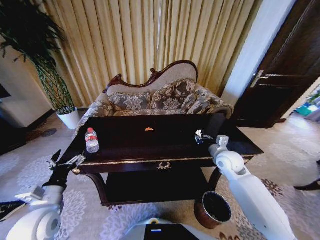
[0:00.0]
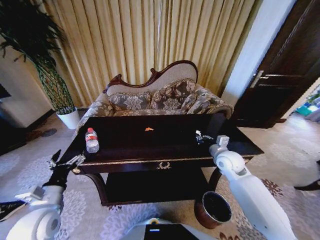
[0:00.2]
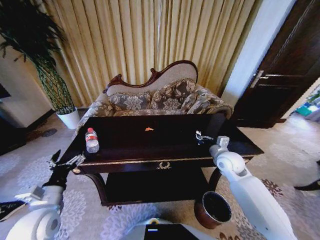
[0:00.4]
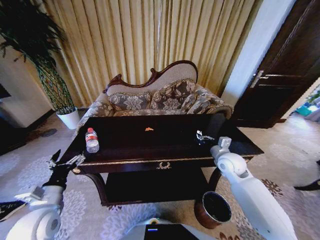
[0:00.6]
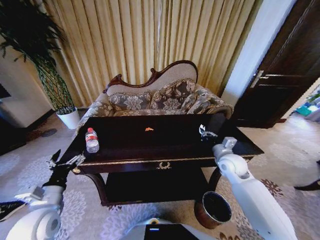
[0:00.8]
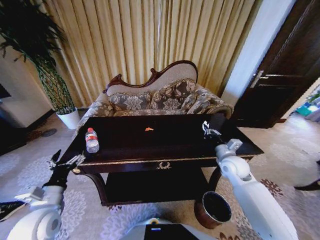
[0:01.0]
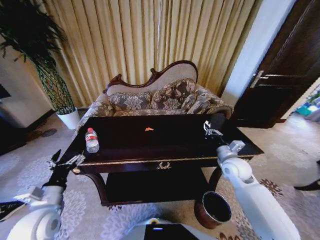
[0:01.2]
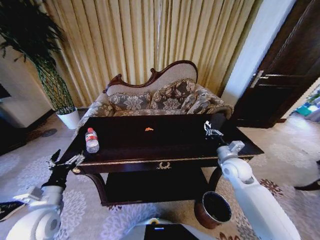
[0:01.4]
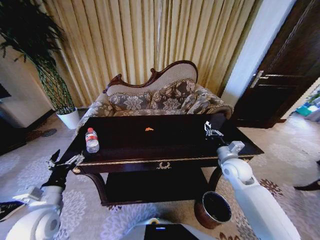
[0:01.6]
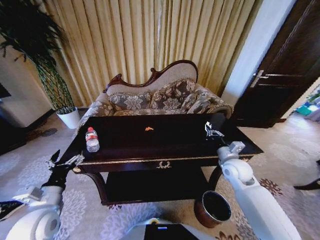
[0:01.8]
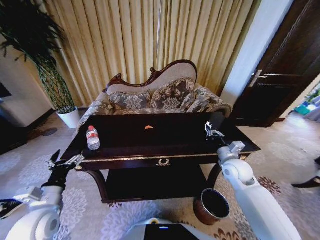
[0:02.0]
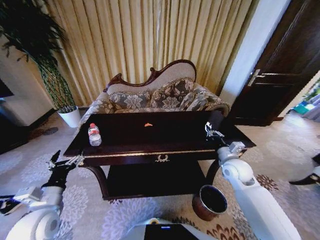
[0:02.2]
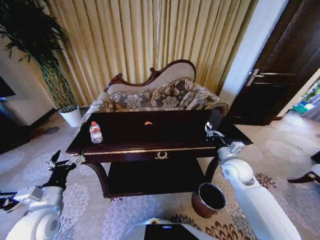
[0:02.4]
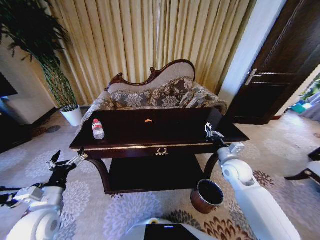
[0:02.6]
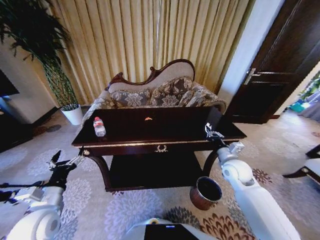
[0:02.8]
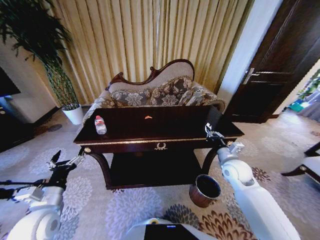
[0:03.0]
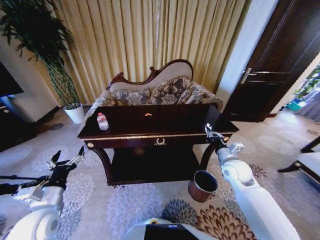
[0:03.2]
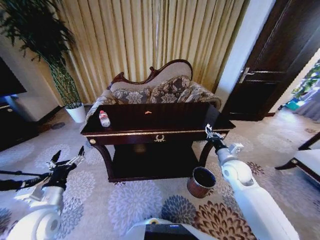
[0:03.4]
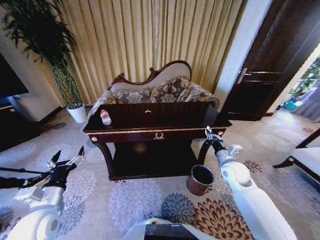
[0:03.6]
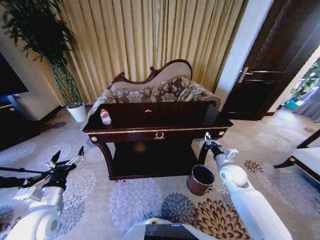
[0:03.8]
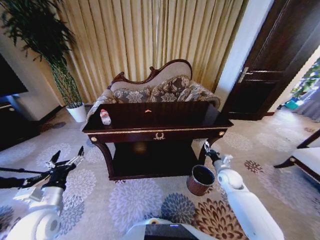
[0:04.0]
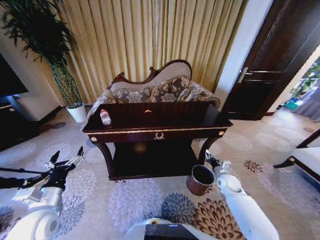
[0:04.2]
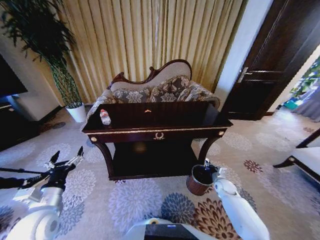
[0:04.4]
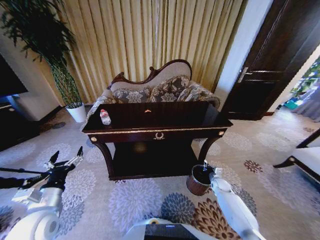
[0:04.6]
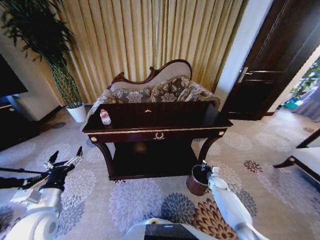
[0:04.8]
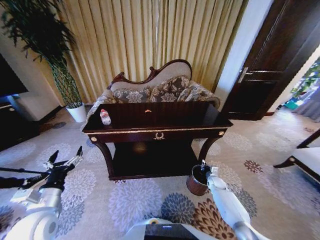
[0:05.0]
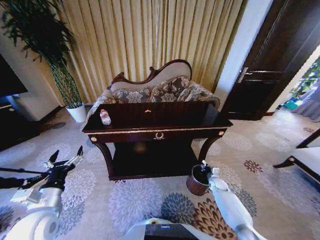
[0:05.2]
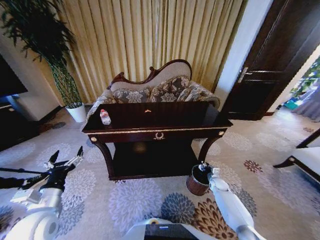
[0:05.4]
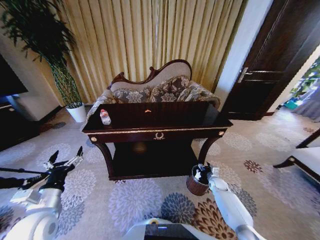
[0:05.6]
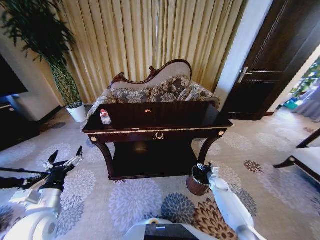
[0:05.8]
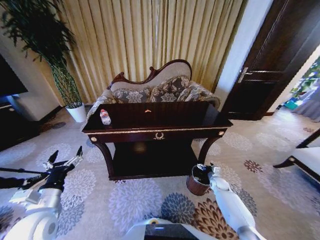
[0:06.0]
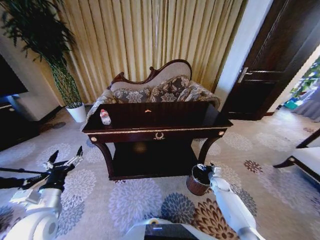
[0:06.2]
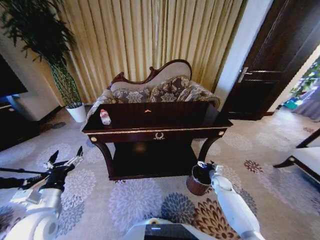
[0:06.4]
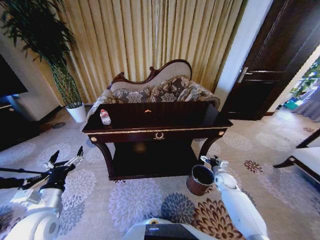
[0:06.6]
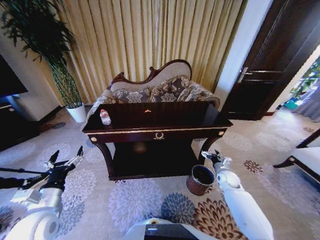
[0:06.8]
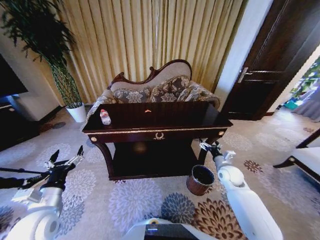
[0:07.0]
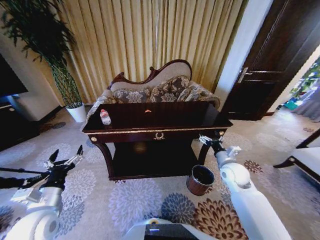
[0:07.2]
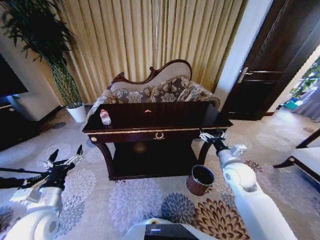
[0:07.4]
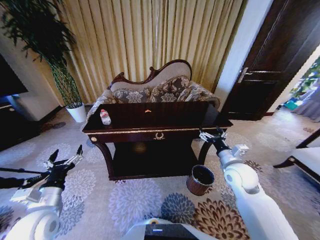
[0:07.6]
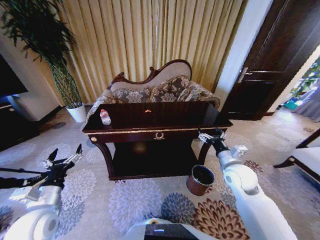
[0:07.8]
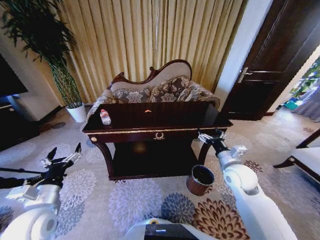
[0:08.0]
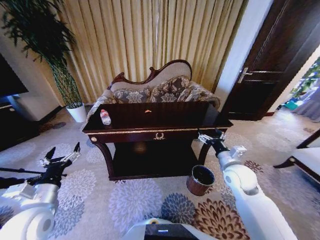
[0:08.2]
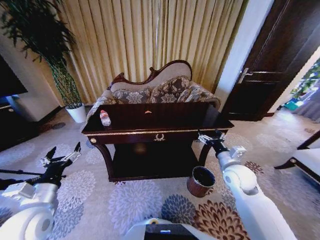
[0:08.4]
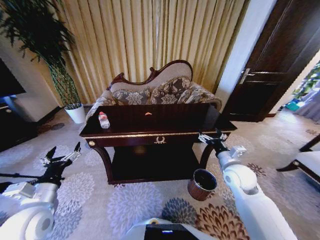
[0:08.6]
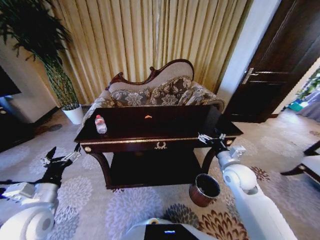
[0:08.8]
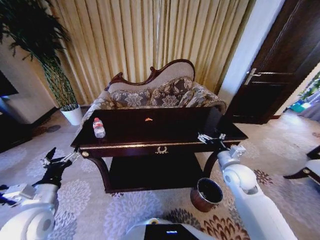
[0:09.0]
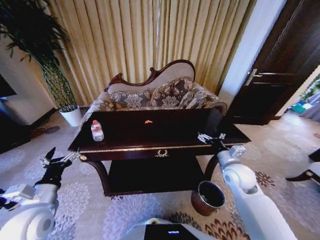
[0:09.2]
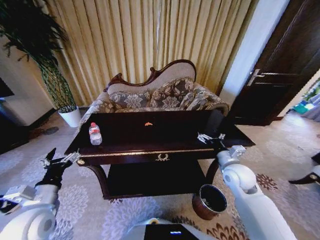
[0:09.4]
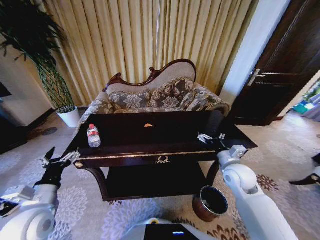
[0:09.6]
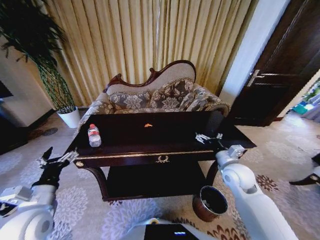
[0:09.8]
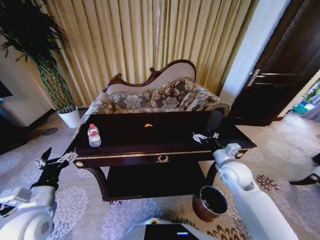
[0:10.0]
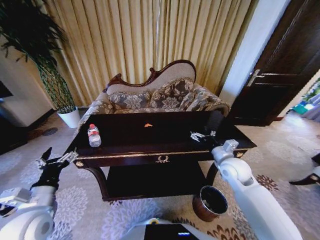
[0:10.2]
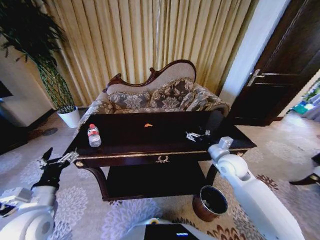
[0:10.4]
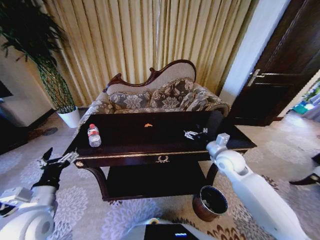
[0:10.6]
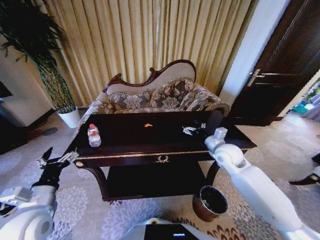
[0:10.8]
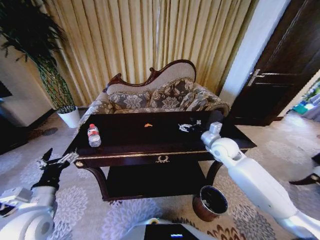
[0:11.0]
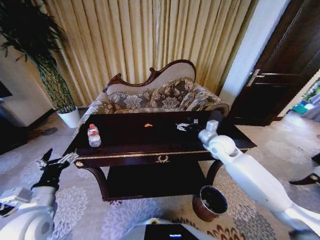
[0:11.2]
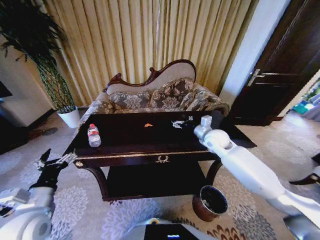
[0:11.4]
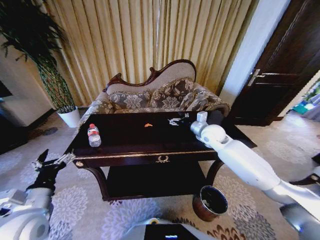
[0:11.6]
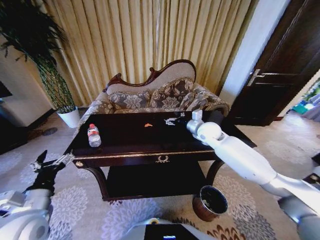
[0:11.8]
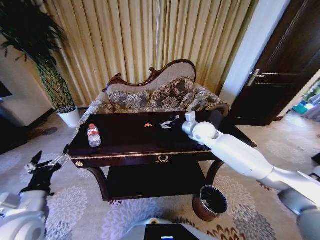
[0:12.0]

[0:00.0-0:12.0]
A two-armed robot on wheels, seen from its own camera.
Task of the whole recording: Move to the front of the table and place the trash on the table into the trash bin.
0:03.0 to 0:04.4: The right gripper goes about 25 cm downward.
0:04.4 to 0:06.0: The right gripper opens its fingers.
0:06.0 to 0:07.6: The right gripper shifts some 30 cm upward.
0:10.4 to 0:12.0: The right gripper shifts about 15 cm forward and to the left.

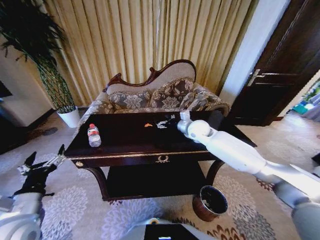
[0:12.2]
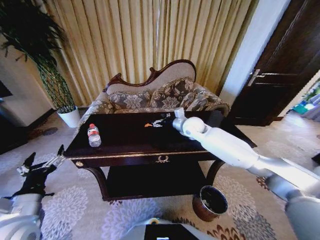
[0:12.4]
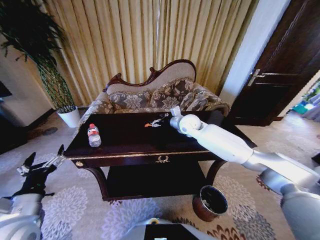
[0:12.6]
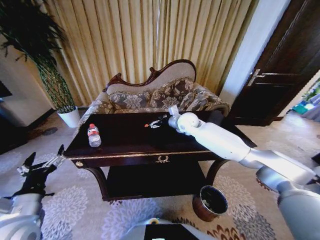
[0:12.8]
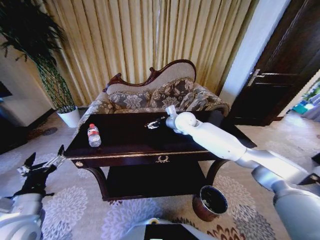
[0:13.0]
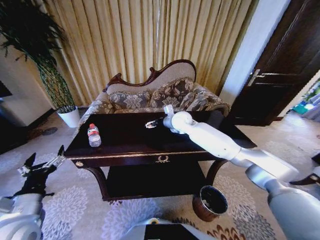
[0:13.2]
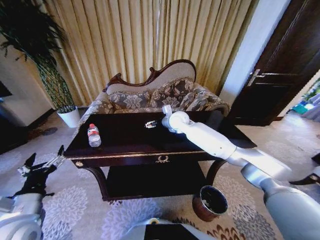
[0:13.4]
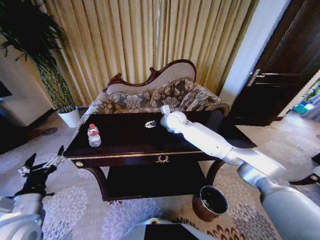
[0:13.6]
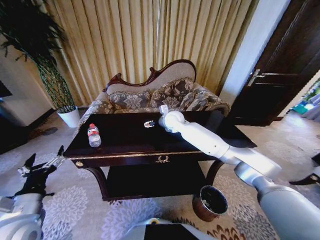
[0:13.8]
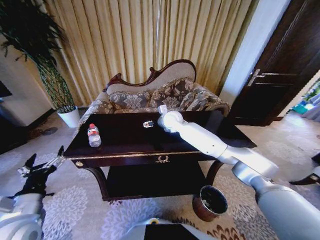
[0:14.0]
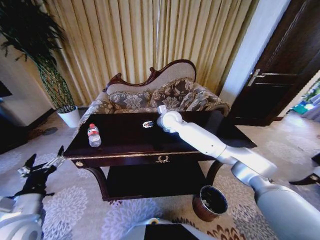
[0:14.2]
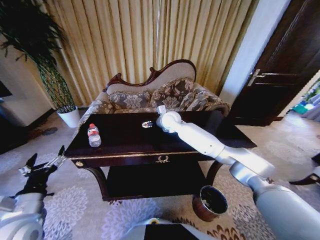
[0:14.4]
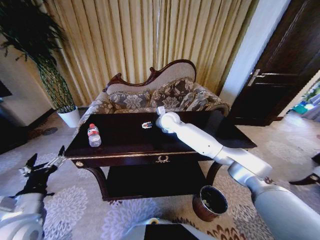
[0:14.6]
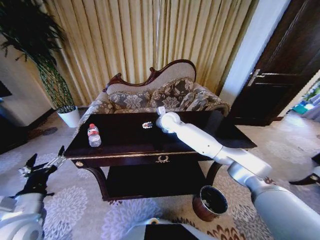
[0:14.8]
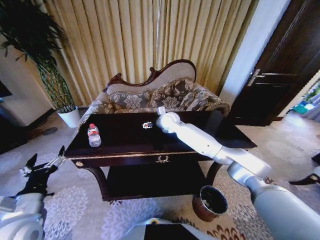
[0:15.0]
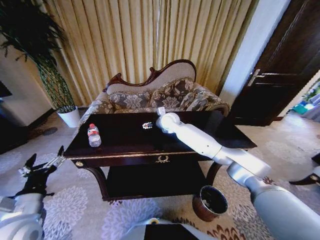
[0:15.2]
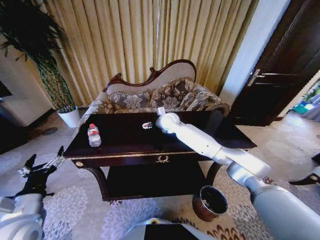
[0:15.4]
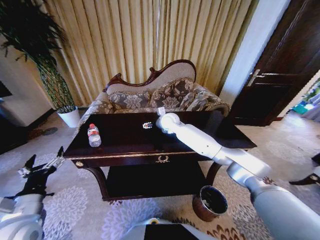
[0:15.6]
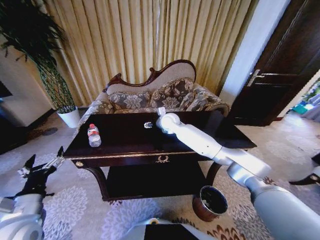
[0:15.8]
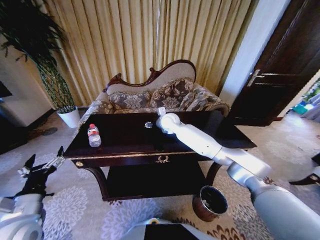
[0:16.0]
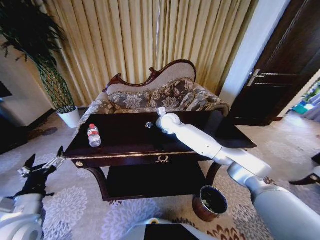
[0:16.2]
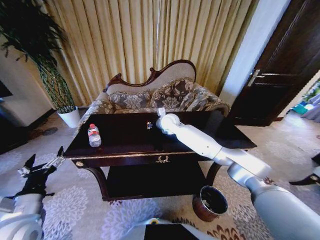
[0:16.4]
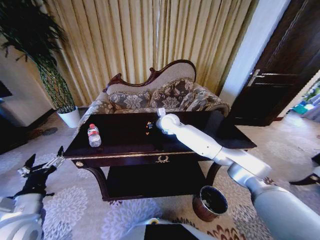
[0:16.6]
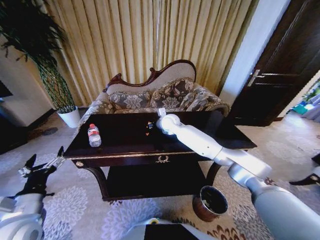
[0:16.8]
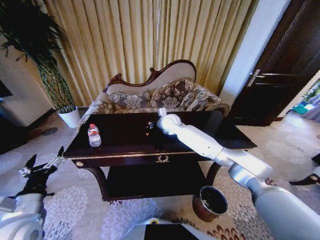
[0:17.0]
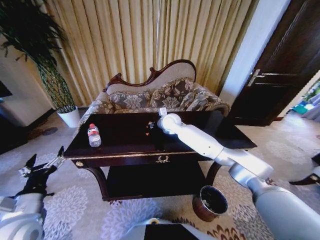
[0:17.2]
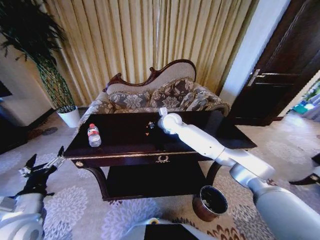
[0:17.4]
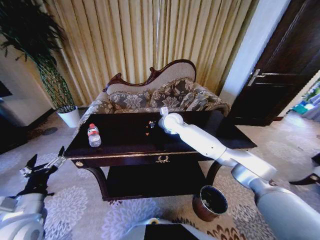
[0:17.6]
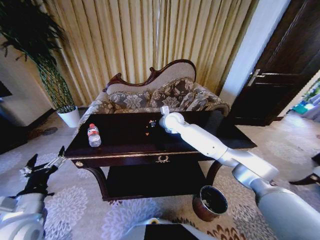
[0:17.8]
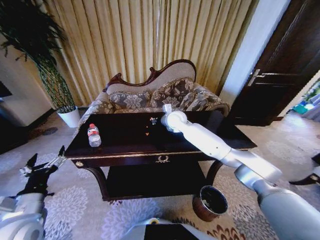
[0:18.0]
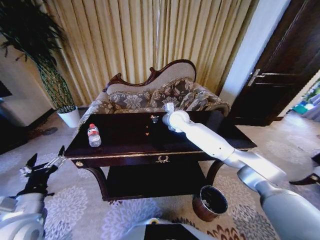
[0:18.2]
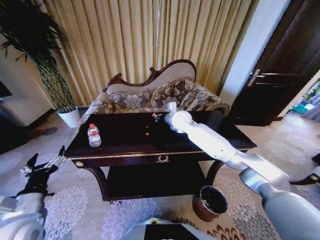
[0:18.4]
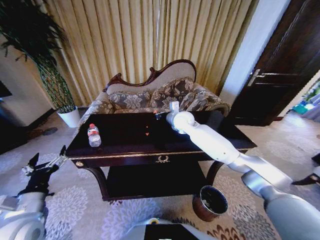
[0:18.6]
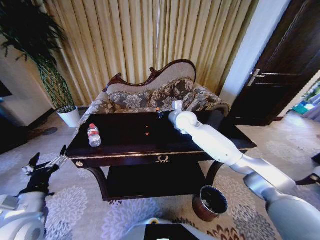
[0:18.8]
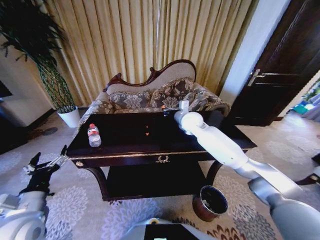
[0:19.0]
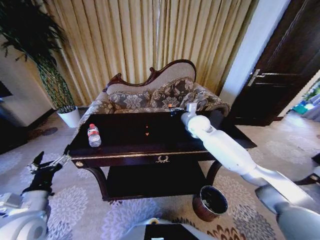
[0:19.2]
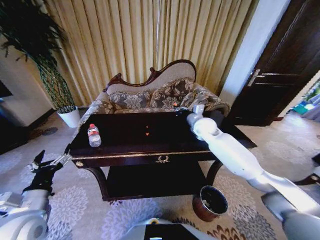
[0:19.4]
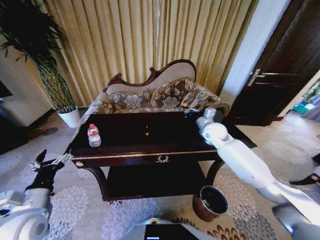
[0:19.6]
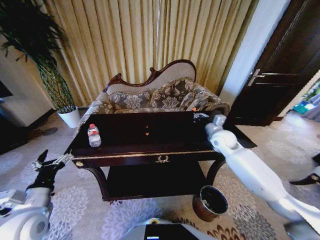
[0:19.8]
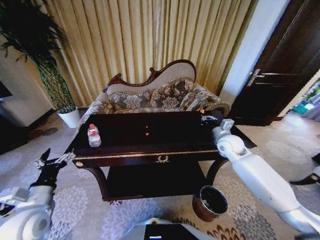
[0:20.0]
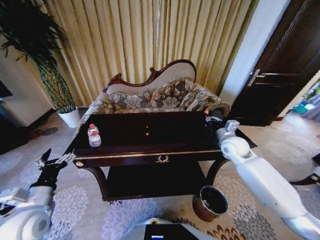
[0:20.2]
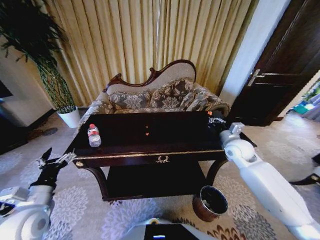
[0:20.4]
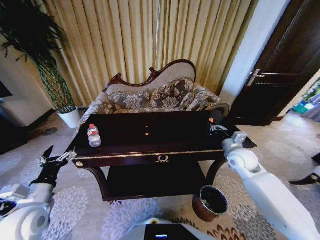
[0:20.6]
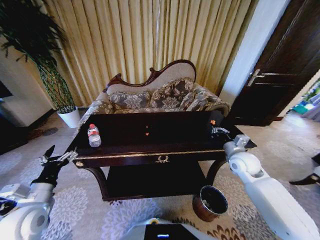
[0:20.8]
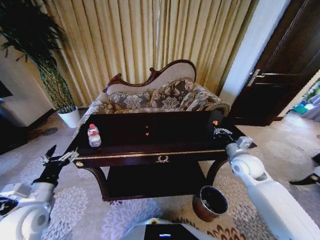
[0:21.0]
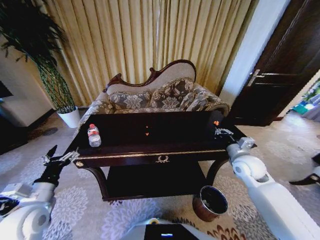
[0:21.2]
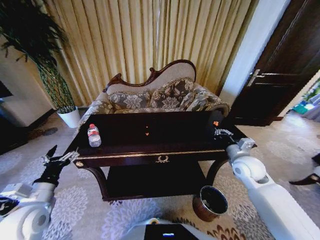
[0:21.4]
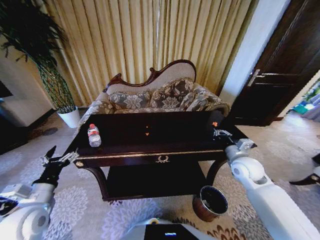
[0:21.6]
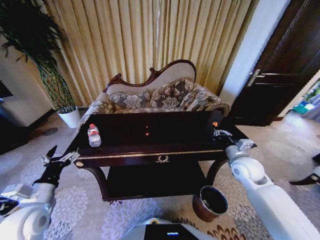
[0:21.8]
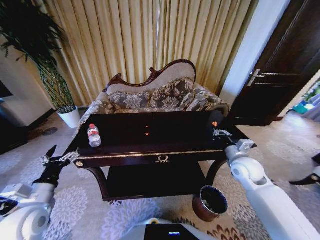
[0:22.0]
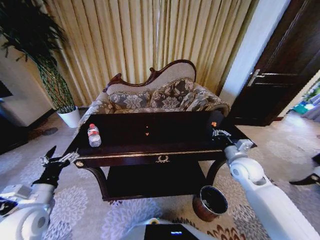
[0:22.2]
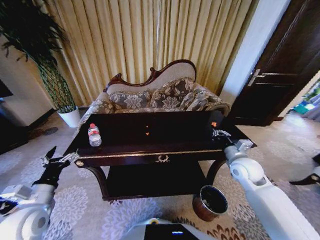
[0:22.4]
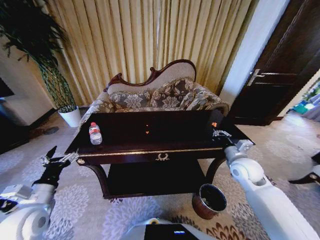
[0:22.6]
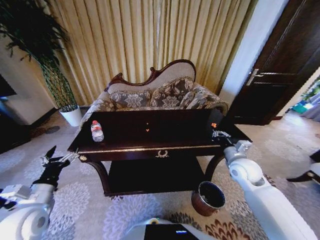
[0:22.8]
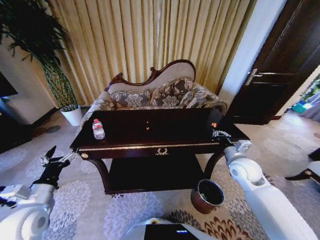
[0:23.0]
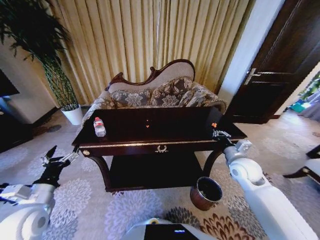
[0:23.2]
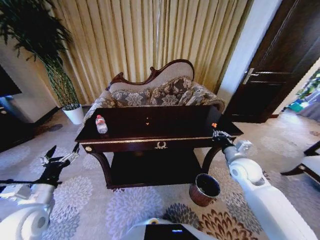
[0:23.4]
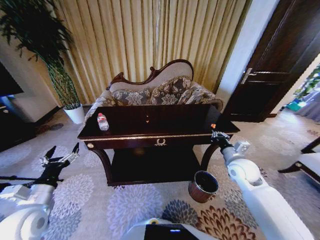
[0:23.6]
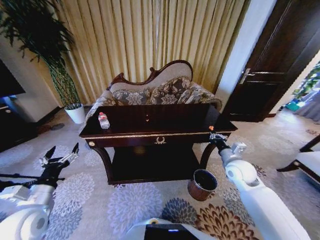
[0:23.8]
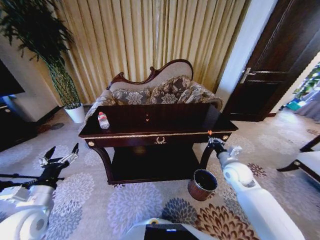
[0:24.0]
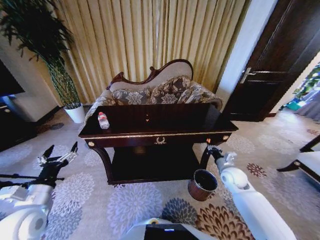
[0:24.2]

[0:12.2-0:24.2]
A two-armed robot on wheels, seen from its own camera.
Task of the whole recording: Move to the front of the table and place the trash on the table into the trash bin.
0:12.2 to 0:13.8: The right gripper travels to the left and forward by approximately 10 cm.
0:13.8 to 0:15.2: The grippers stay close to where they were, moving slightly.
0:15.2 to 0:16.6: The right gripper closes up.
0:16.6 to 0:18.2: The right gripper shifts by some 5 cm.
0:18.2 to 0:19.8: The right gripper moves to the right and backward, about 20 cm.
0:19.8 to 0:21.2: The right gripper moves backward, some 10 cm.
0:21.2 to 0:22.6: The grippers make only small movements.
0:22.6 to 0:24.2: The right gripper heads downward, covering roughly 10 cm.
